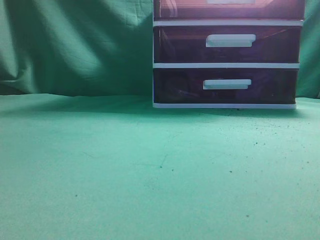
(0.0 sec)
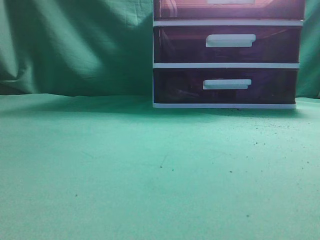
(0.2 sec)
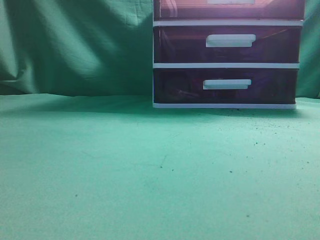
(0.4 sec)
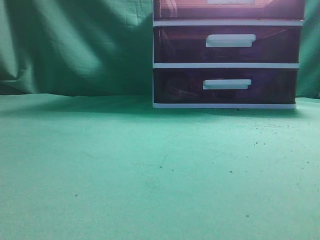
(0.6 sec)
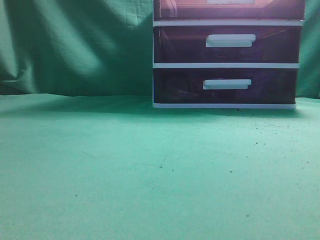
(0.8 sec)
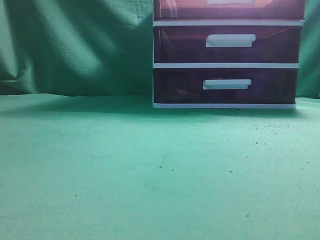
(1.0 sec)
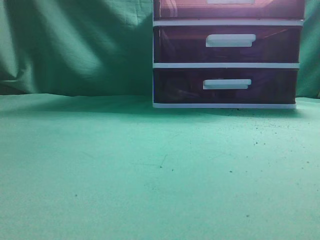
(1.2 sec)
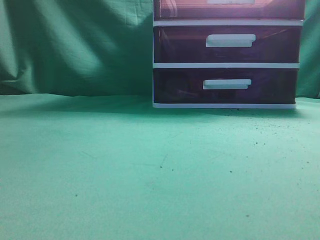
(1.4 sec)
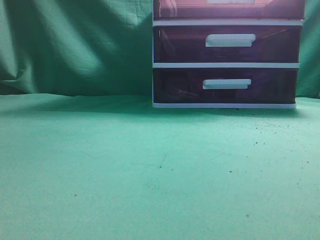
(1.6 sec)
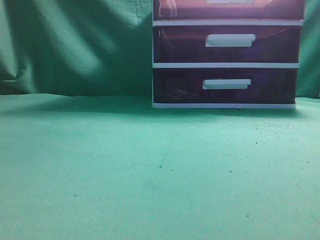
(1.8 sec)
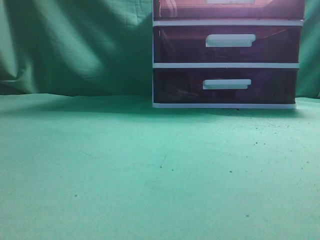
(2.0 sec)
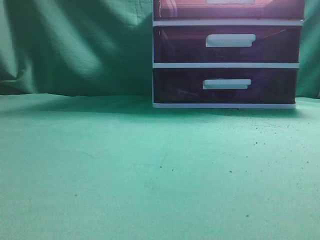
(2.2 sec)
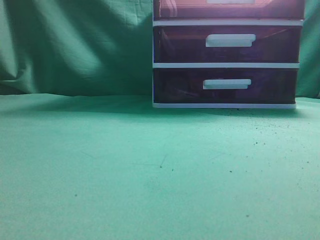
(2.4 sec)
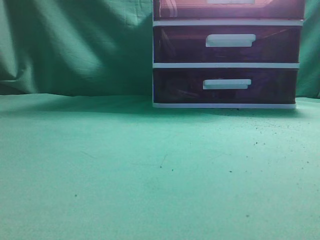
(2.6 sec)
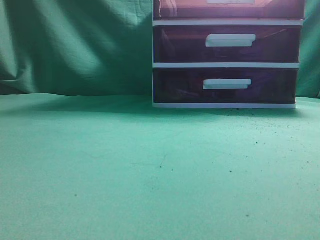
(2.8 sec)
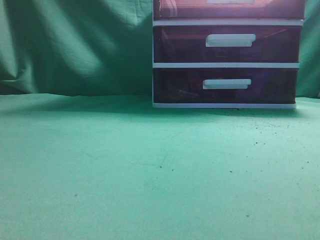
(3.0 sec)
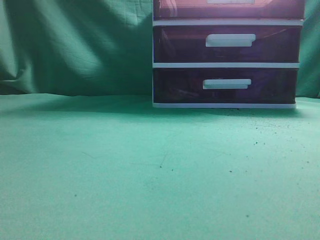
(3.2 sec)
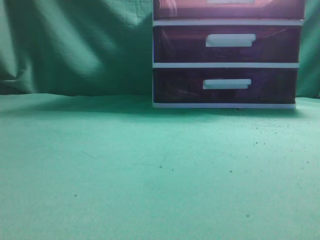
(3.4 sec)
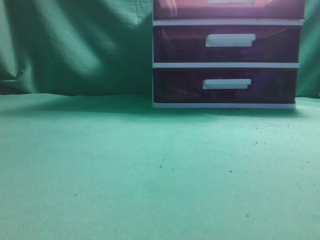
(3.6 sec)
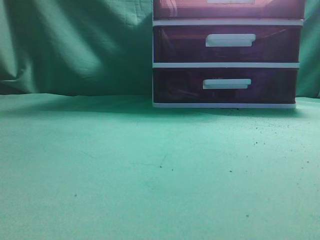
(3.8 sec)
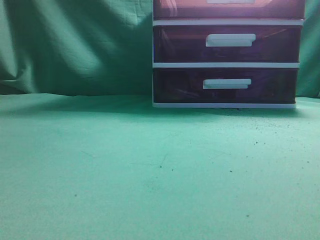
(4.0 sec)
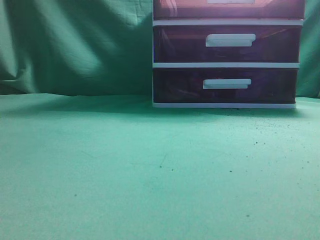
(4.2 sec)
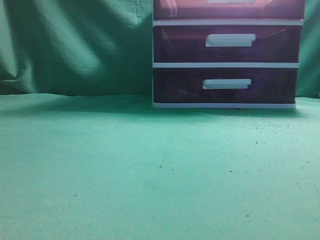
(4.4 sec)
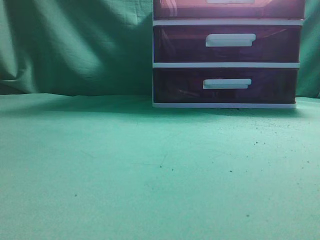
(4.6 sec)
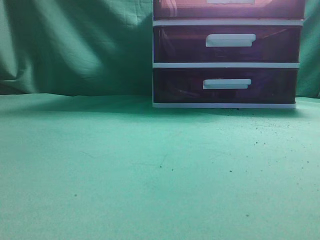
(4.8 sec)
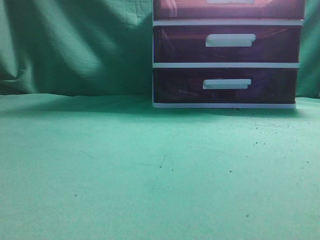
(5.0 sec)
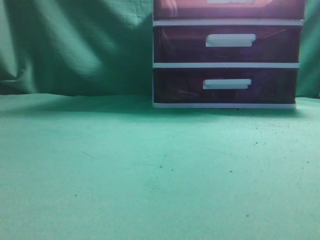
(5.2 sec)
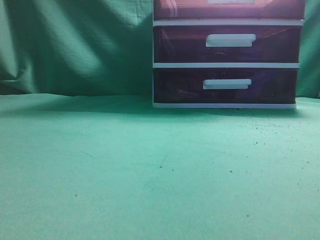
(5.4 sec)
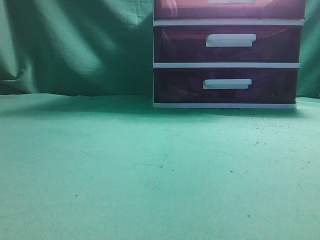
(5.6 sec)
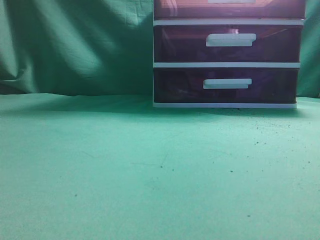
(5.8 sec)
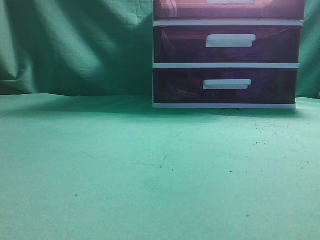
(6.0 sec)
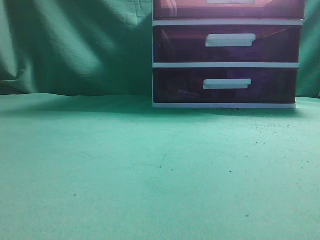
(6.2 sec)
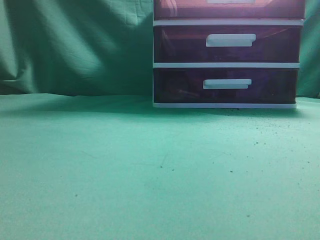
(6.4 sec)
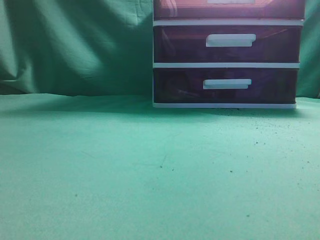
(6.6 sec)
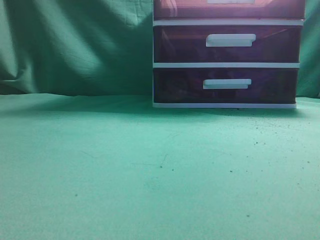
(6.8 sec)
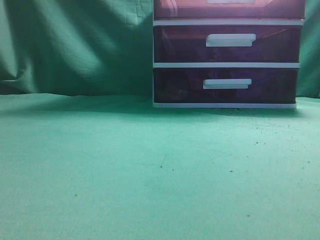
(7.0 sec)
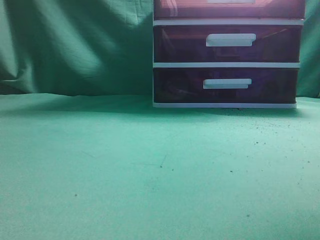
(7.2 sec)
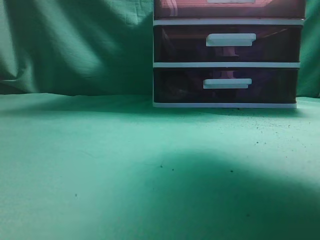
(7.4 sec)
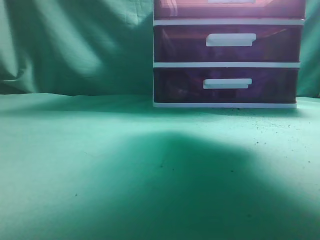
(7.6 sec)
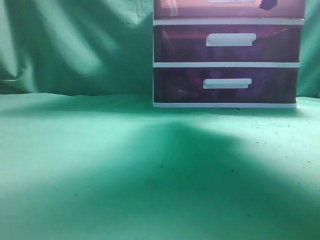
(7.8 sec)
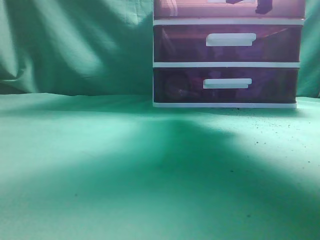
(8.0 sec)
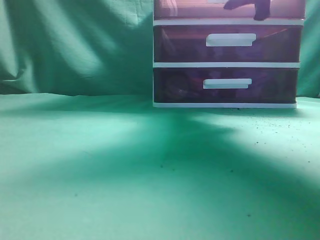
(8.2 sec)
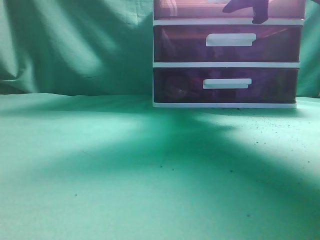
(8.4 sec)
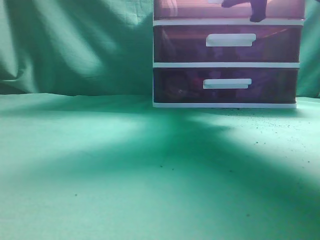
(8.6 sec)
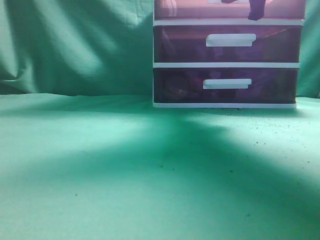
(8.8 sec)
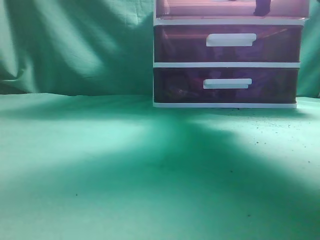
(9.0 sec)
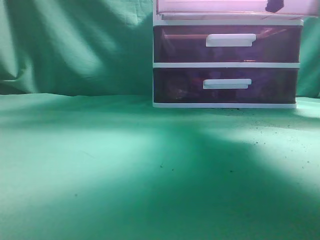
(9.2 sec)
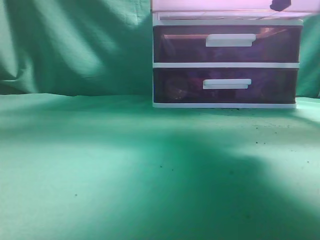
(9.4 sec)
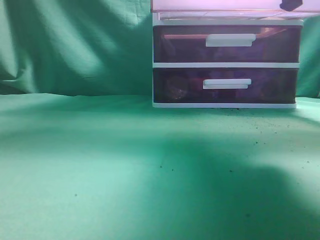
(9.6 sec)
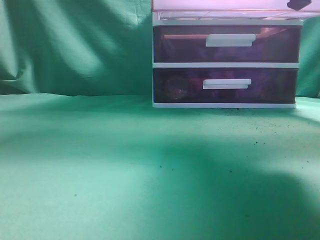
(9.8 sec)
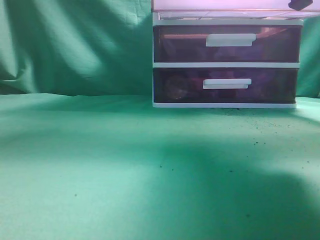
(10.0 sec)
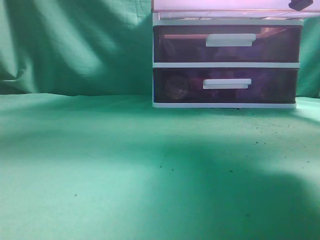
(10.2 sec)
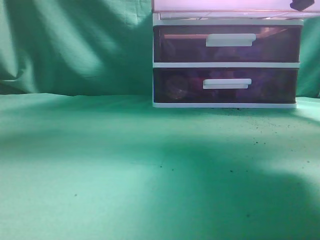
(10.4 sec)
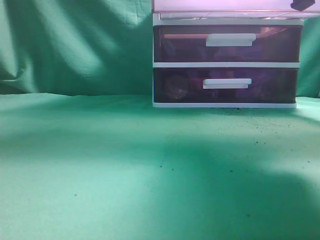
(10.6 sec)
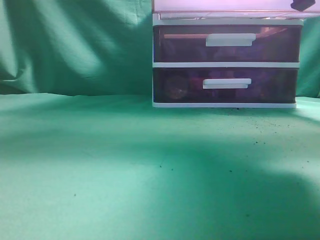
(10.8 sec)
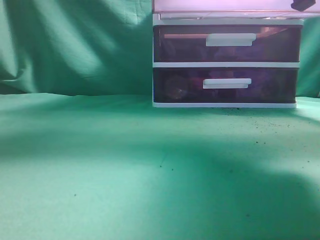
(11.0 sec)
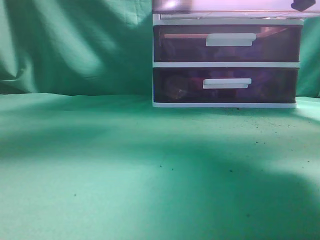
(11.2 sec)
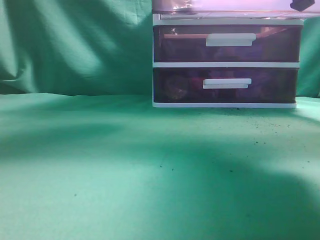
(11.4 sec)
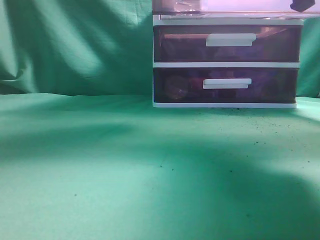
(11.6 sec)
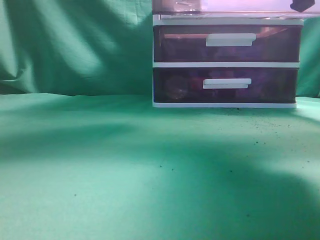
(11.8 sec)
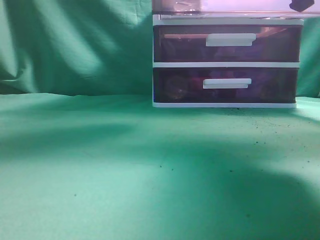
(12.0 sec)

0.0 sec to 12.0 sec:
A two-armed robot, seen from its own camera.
Task of the whole recording: place the water bottle into the drawer.
Step, 0.0 sec to 10.2 sec: Open the drawer.
6.0 sec to 7.6 sec: The right gripper travels forward by some 35 cm, and opens up.
7.6 sec to 9.0 sec: The right gripper moves forward, approximately 5 cm.
9.0 sec to 10.4 sec: The right gripper shifts about 10 cm backward, while the left gripper heads upward, covering approximately 15 cm.
10.4 sec to 12.0 sec: The left gripper heads to the right, forward and downward, covering approximately 25 cm, and opens its fingers.

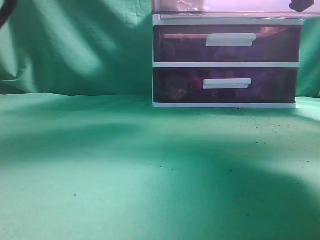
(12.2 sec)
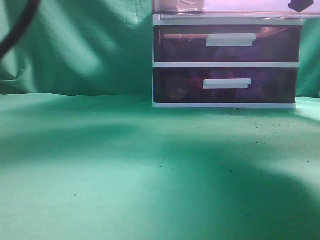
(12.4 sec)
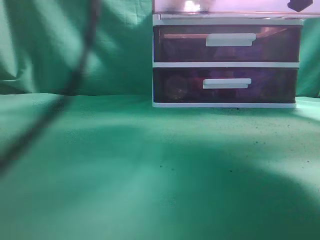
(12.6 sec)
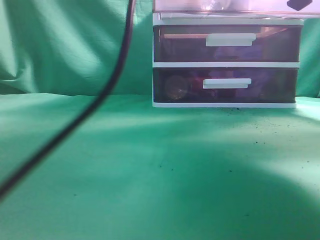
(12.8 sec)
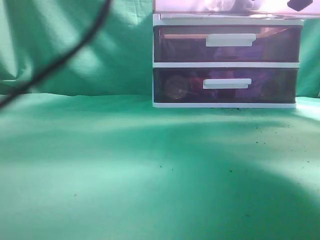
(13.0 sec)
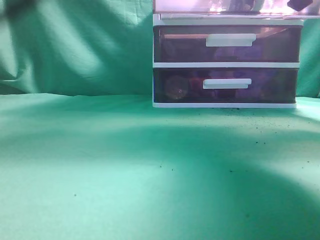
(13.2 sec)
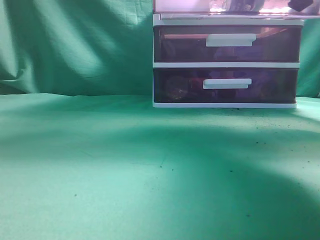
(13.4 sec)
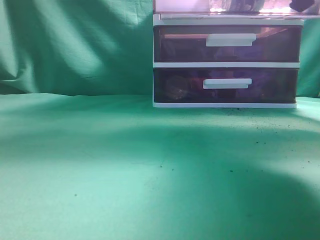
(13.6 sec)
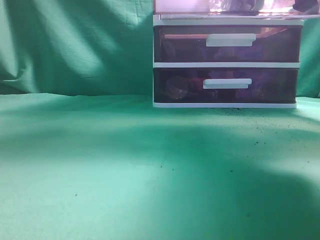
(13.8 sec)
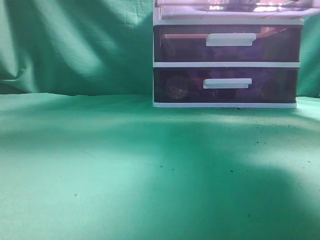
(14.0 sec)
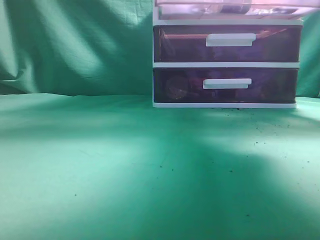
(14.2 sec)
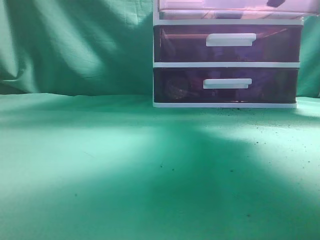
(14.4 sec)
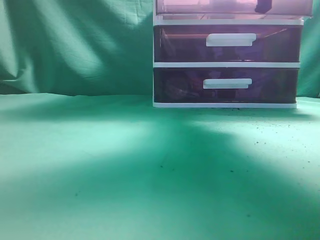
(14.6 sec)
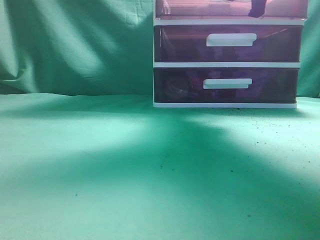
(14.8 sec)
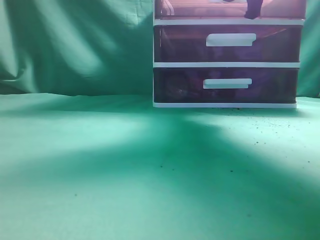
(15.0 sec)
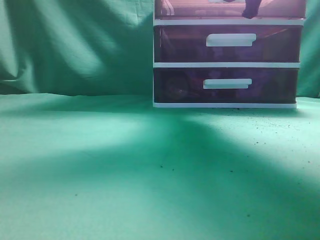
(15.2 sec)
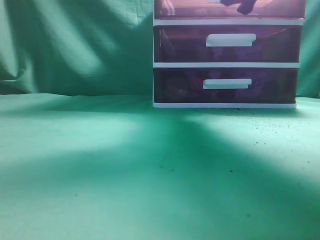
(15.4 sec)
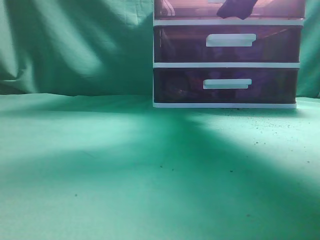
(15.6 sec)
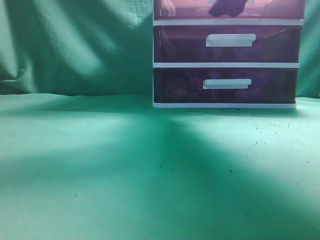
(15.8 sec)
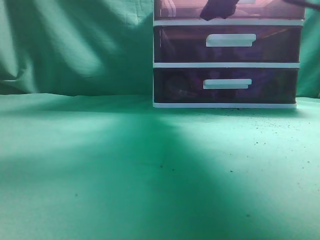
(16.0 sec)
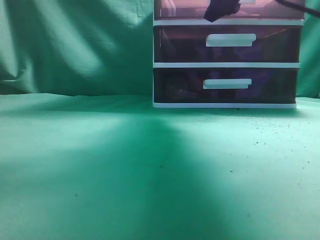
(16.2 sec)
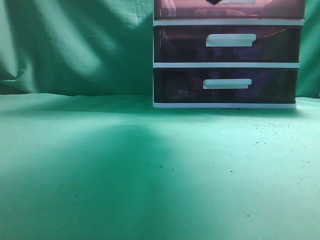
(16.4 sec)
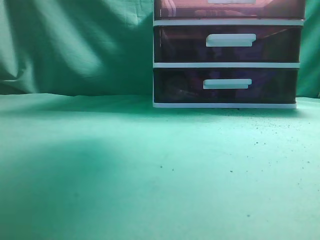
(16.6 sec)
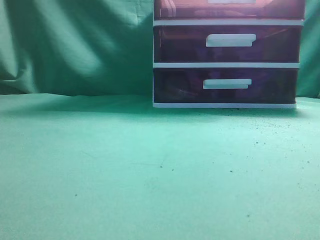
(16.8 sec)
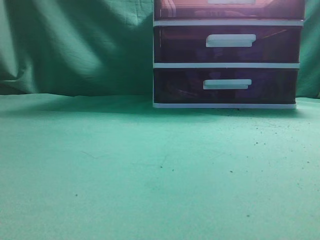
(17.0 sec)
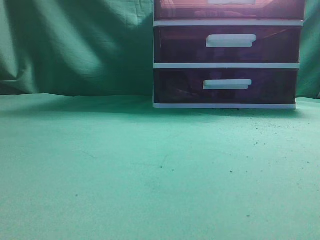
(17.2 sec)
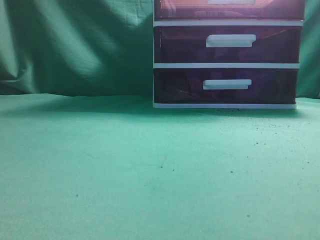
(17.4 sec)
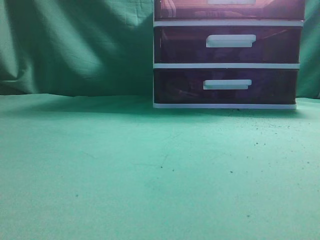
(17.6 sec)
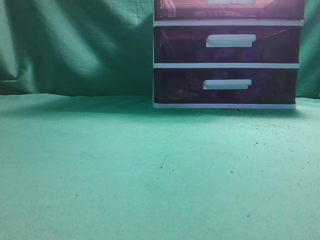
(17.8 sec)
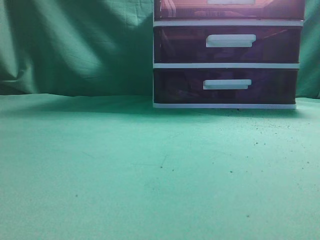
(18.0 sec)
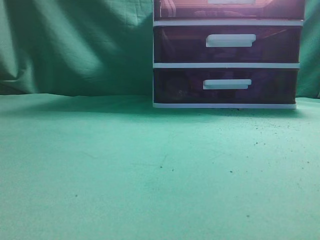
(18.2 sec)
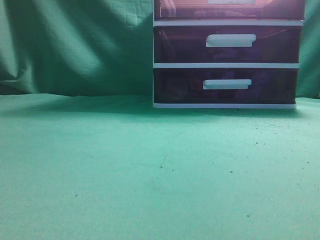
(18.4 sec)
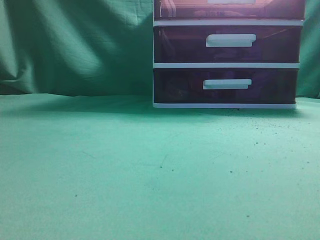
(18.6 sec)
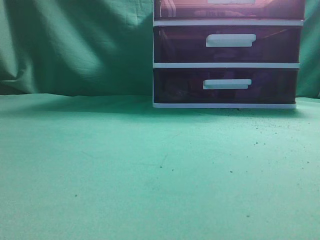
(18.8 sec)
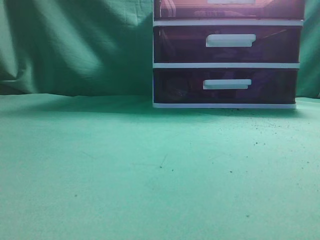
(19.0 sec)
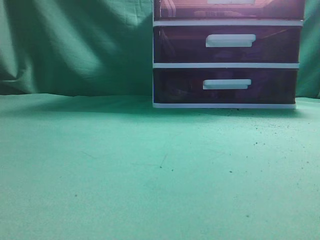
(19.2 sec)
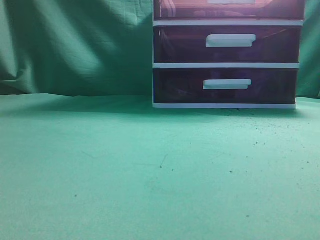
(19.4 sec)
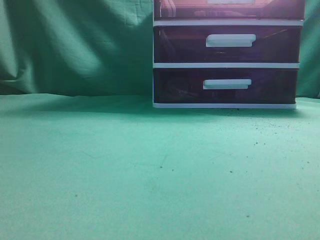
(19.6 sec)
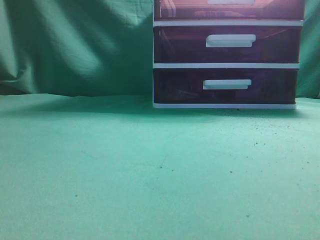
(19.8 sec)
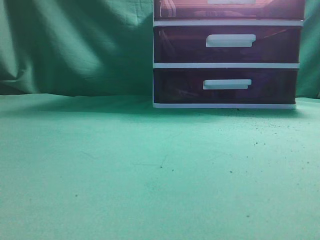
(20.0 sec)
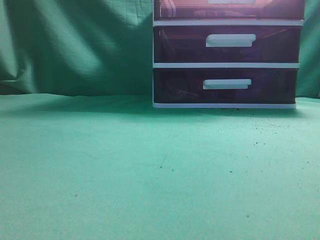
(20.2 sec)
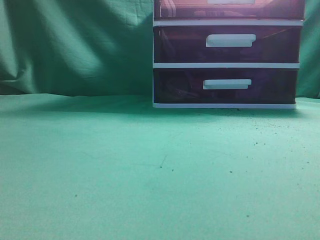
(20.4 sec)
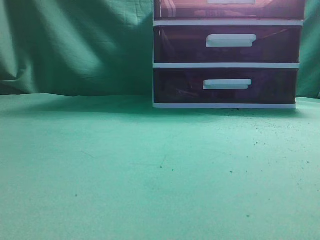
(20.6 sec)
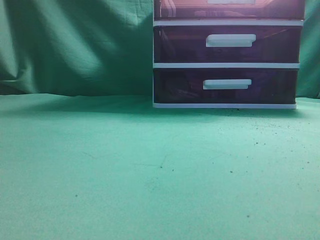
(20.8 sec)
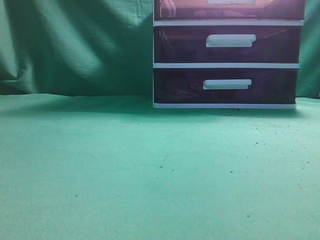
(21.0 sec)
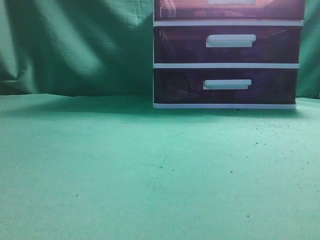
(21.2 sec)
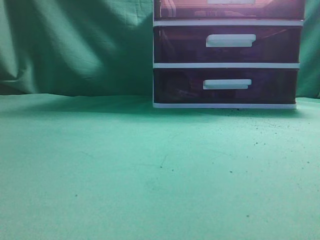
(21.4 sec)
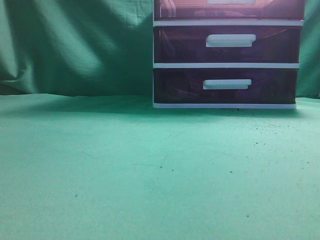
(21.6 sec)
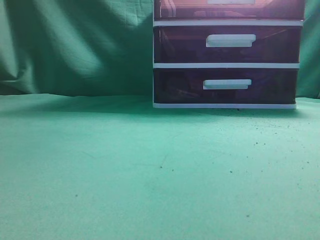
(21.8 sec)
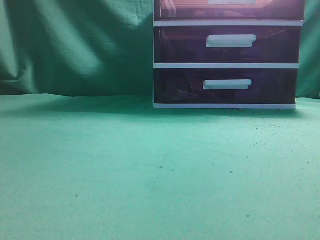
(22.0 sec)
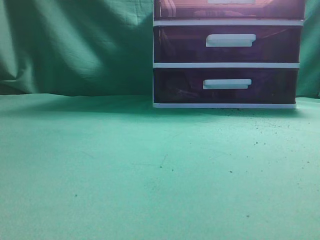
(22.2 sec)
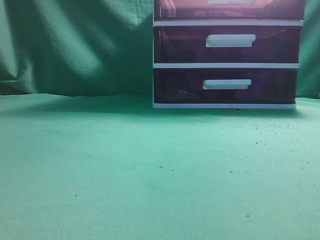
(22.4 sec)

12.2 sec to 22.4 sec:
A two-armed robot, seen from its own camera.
Task of the whole recording: place the water bottle into the drawer.
Step, 12.2 sec to 14.4 sec: Place the water bottle inside the drawer.
Step, 14.6 sec to 15.8 sec: Close the drawer.
12.2 sec to 13.6 sec: The left gripper shifts some 5 cm upward, moves about 5 cm to the right and comes back, and closes its fingers.
13.6 sec to 15.2 sec: The left gripper travels backward and to the left by approximately 35 cm; the right gripper shifts about 15 cm forward.
15.2 sec to 16.6 sec: The right gripper is displaced backward and upward by roughly 10 cm, and opens.
16.6 sec to 18.0 sec: The left gripper travels downward and backward by approximately 15 cm. The right gripper goes roughly 30 cm backward, and closes its fingers.
